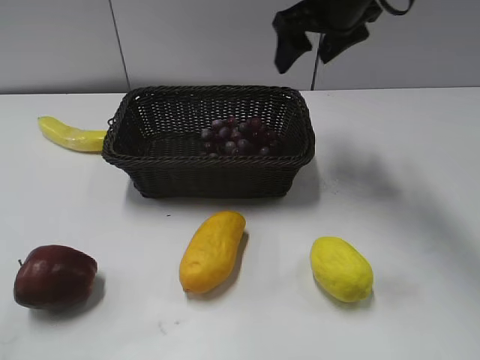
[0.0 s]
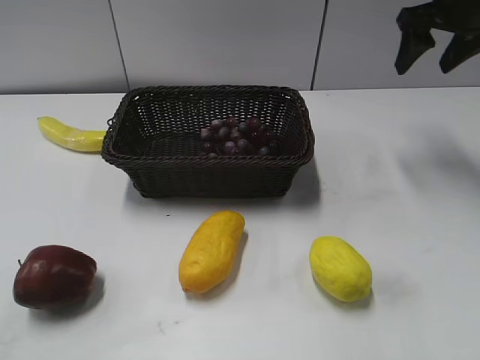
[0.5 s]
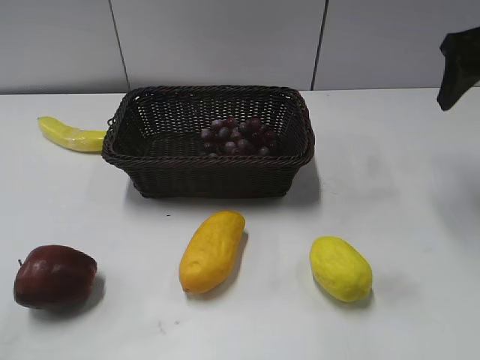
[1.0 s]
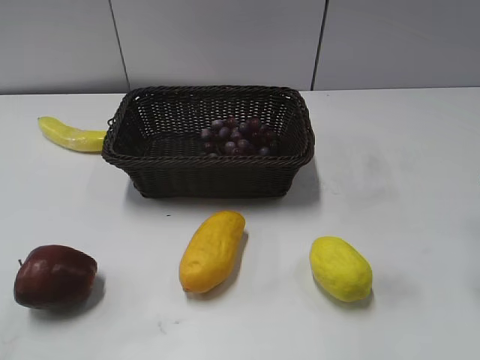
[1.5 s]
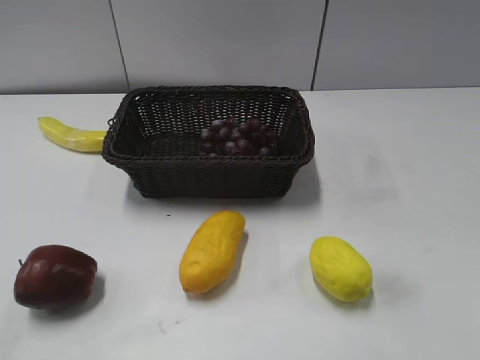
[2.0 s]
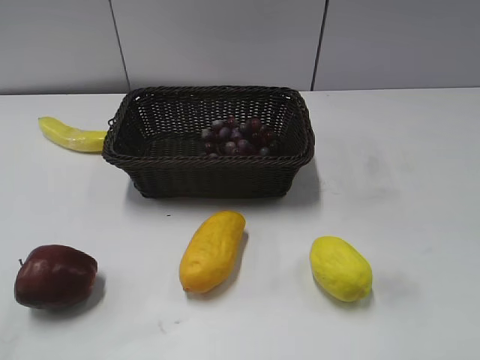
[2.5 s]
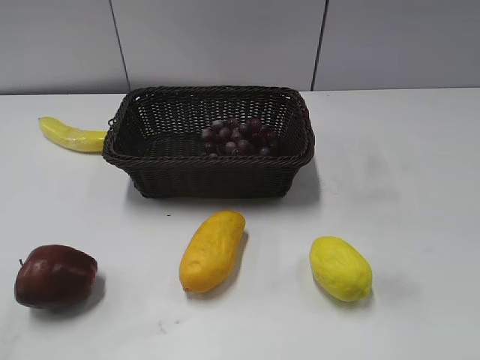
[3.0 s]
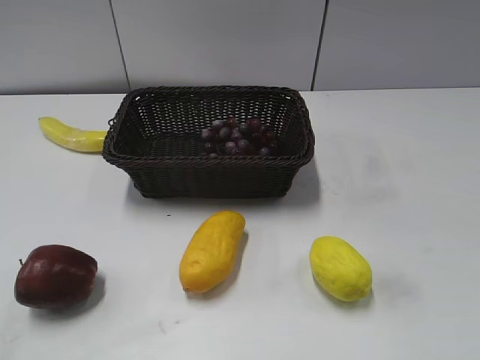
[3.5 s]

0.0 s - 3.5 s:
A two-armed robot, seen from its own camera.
0.0 s - 2.0 s: The right gripper goes about 30 cm backward and to the right.
